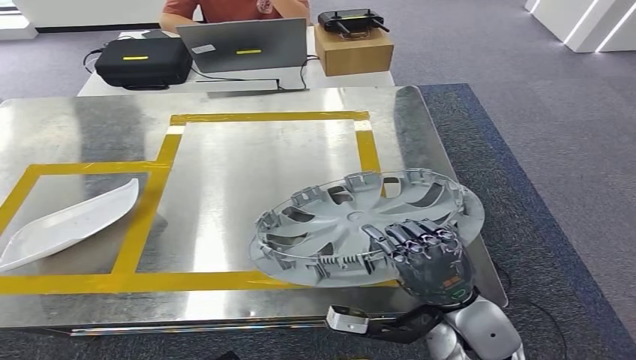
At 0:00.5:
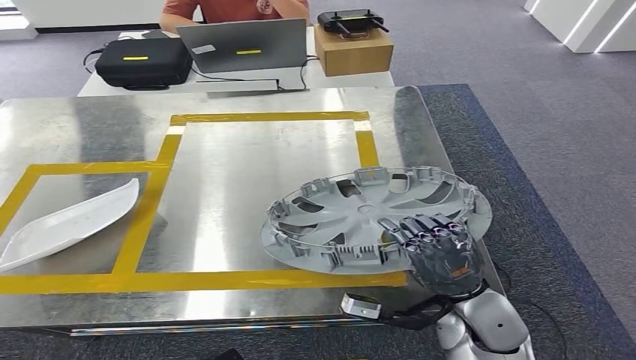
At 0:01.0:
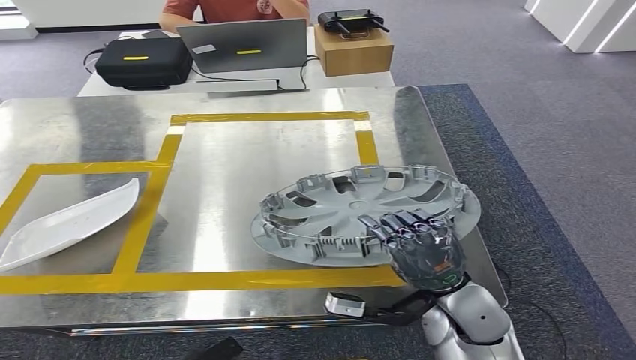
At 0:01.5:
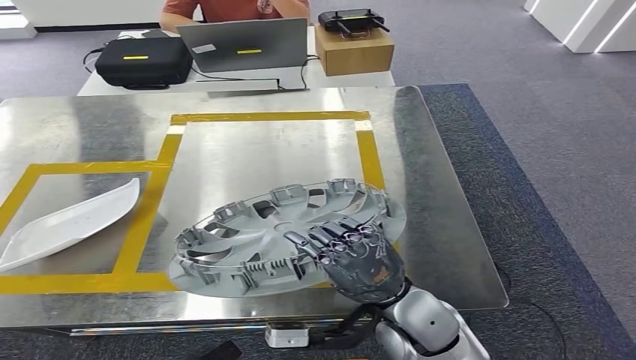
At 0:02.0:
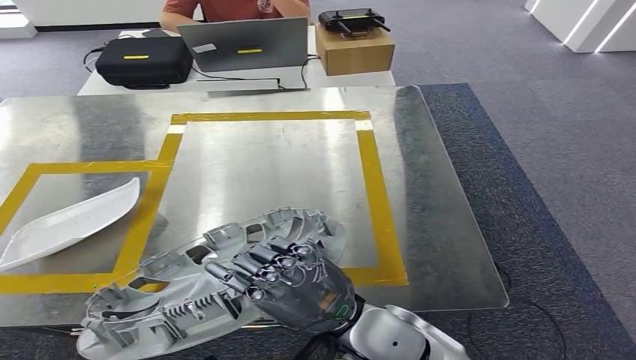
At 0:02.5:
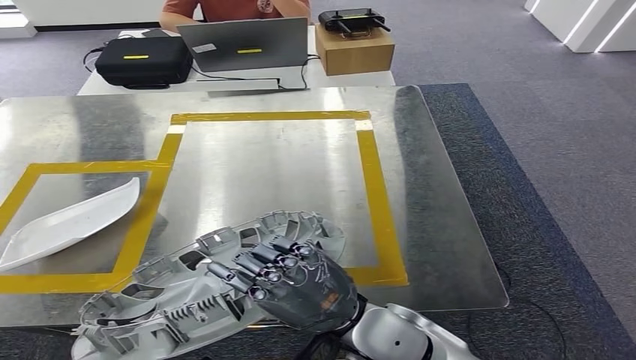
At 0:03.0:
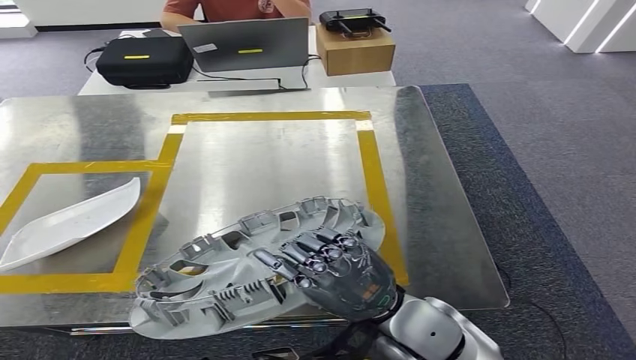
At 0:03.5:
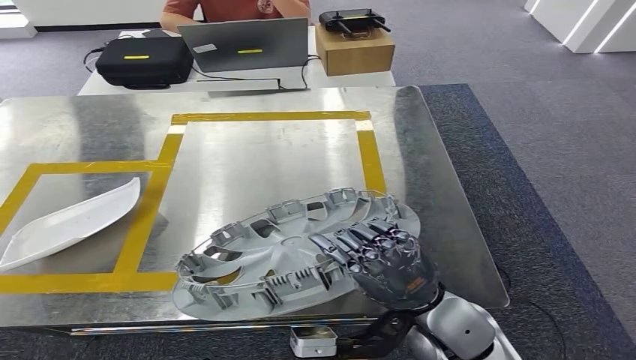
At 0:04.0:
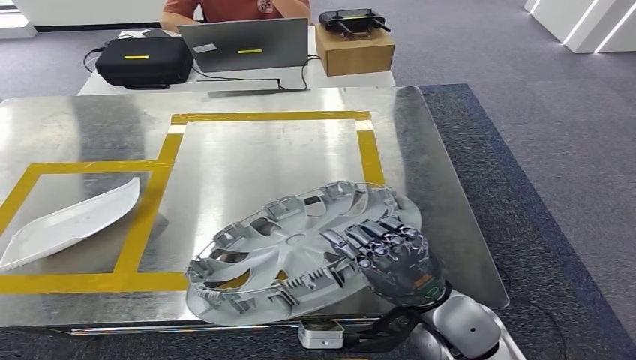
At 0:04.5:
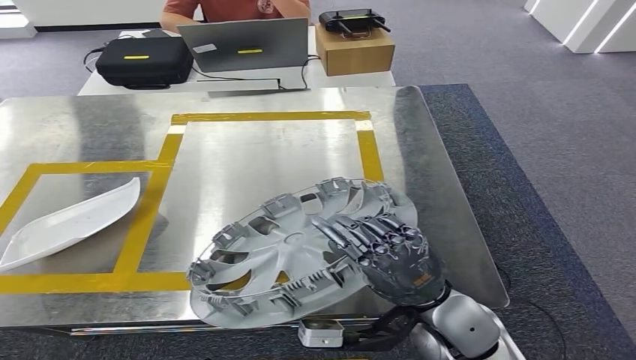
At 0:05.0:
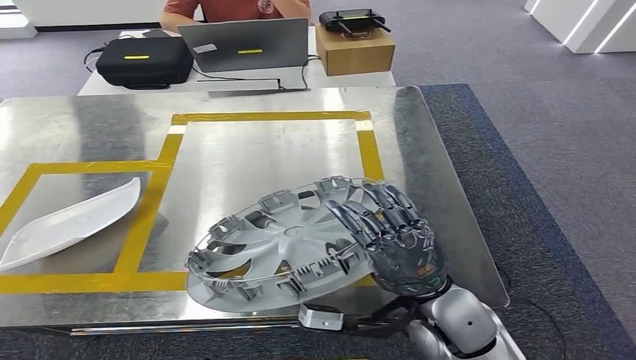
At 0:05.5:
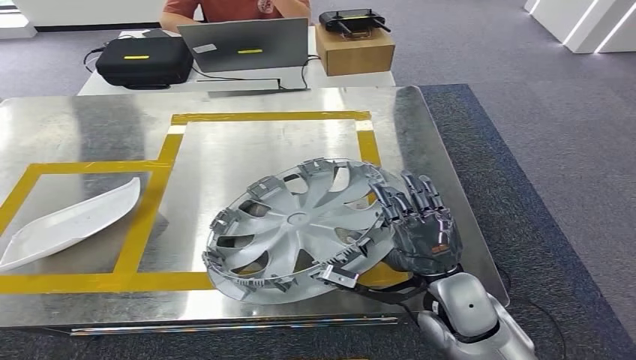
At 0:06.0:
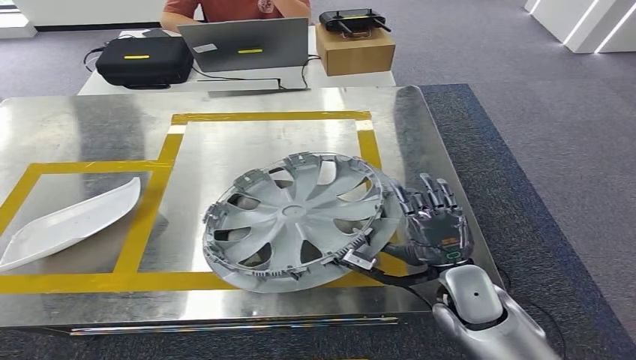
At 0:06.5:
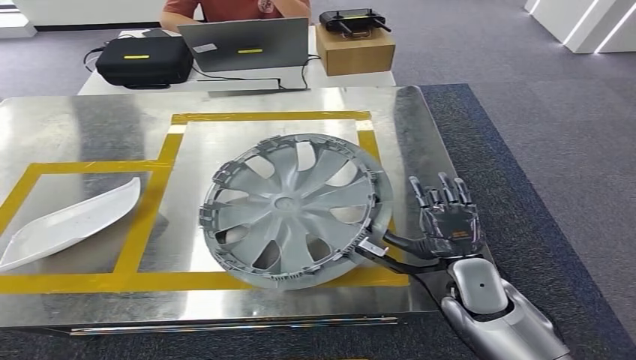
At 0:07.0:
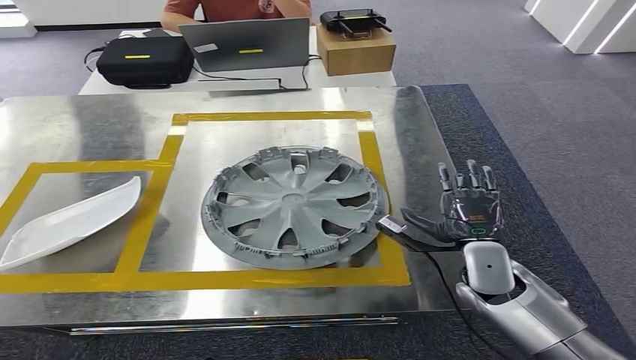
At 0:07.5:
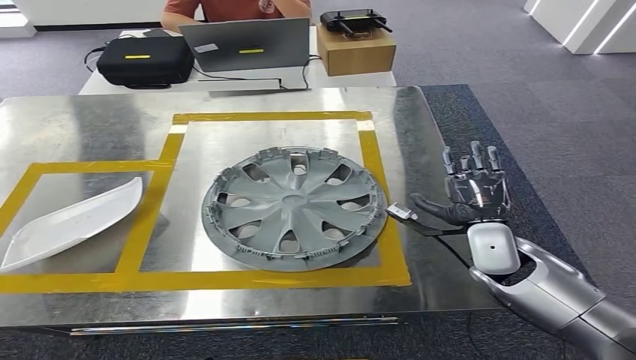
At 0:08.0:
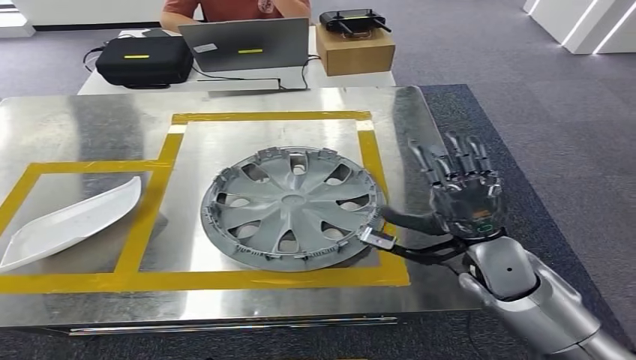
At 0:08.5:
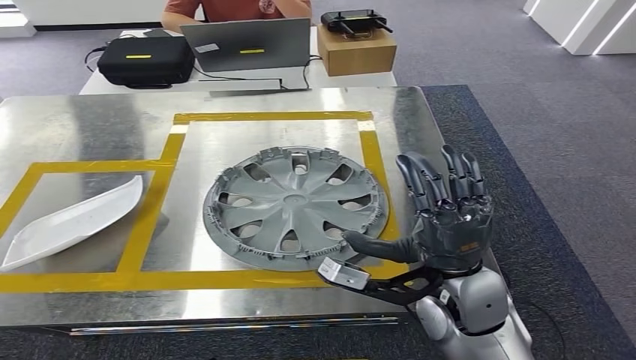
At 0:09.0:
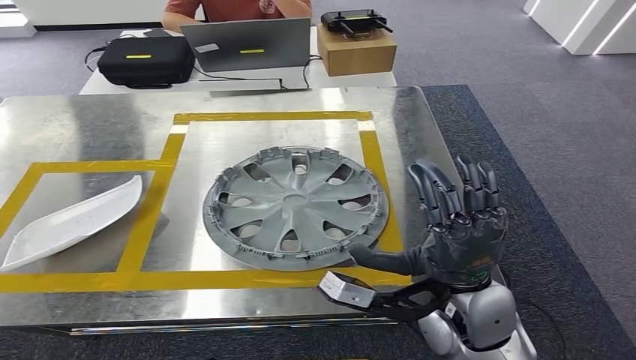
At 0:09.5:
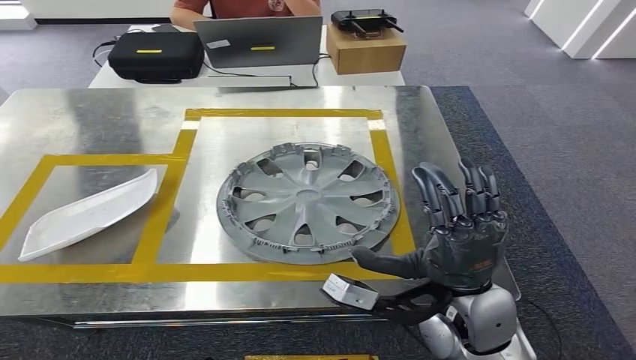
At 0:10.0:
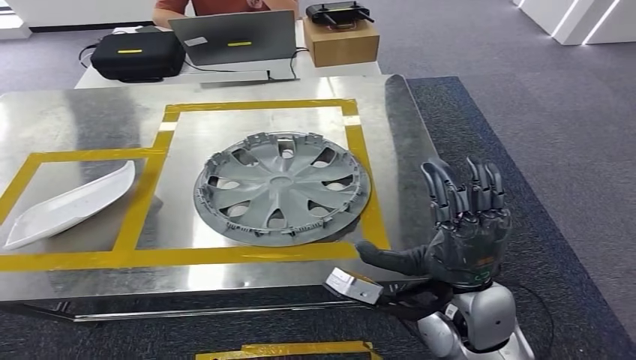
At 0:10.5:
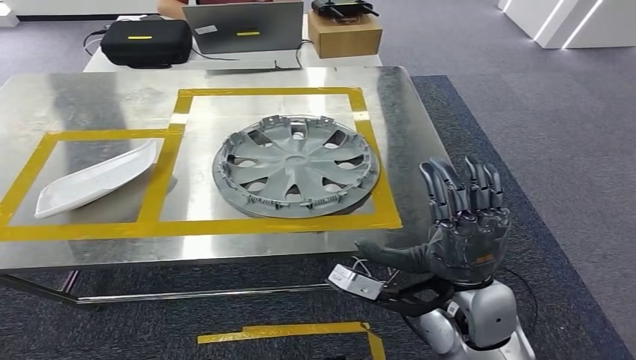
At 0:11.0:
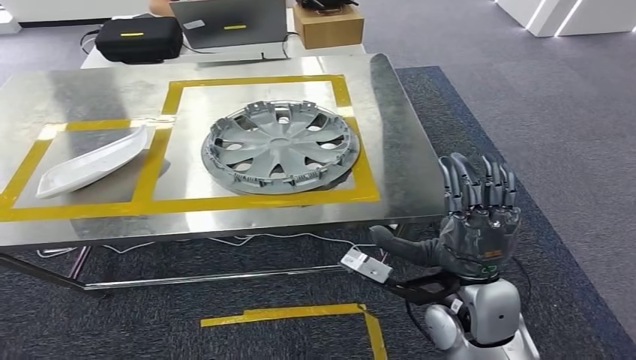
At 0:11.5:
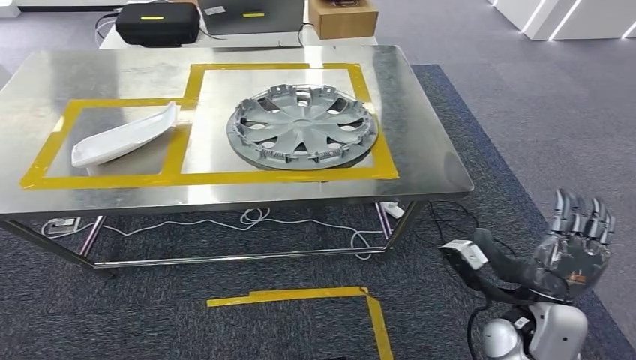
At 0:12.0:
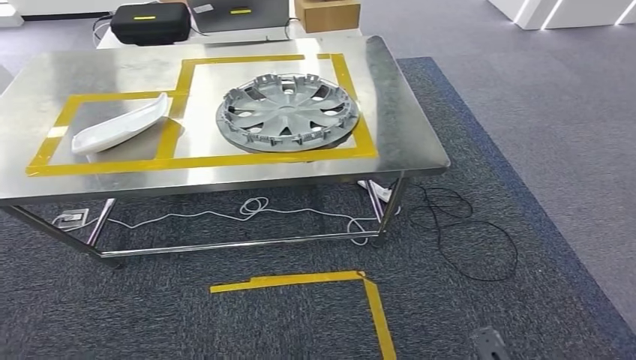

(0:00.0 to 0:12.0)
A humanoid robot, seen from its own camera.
Step, 0:00.0 - 0:08.5: Insert the small component into the corresponding slot on the workbench.
0:00.0 - 0:02.0: The right hand shifts roughly 15 cm to the left.
0:02.0 - 0:04.0: The right hand is displaced to the right by about 10 cm.
0:04.0 - 0:06.0: The right hand travels downward by roughly 5 cm.
0:06.0 - 0:08.0: The right hand is displaced upward by some 5 cm.

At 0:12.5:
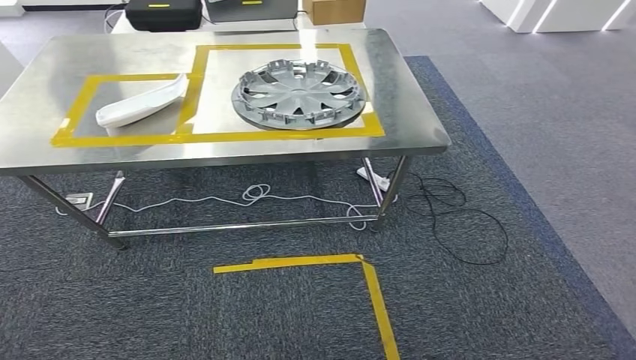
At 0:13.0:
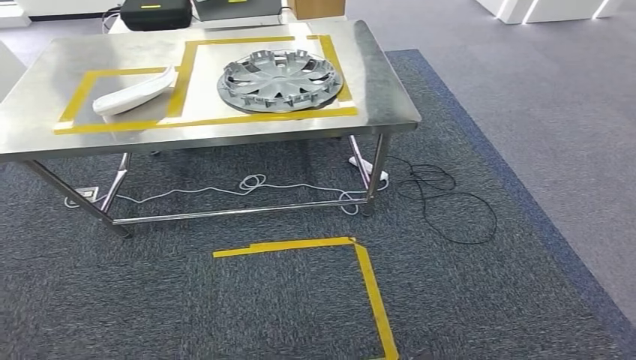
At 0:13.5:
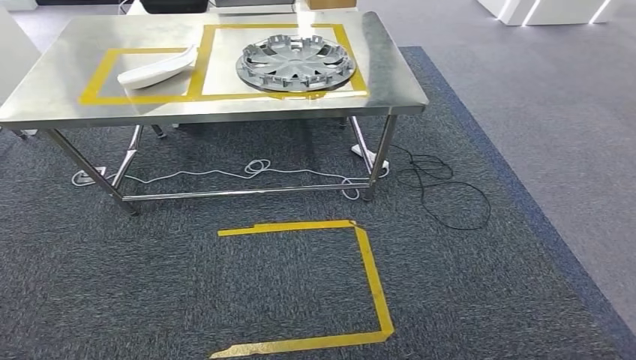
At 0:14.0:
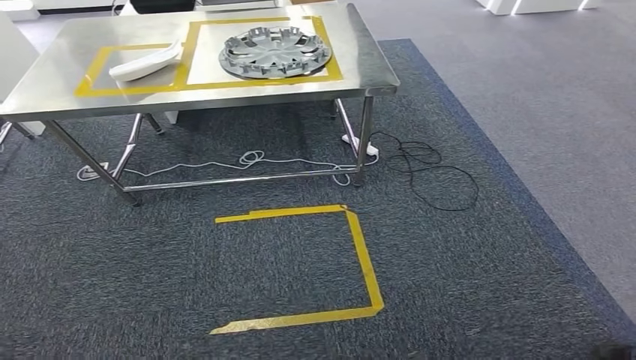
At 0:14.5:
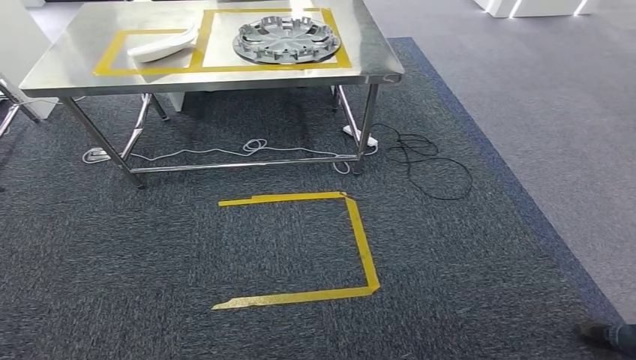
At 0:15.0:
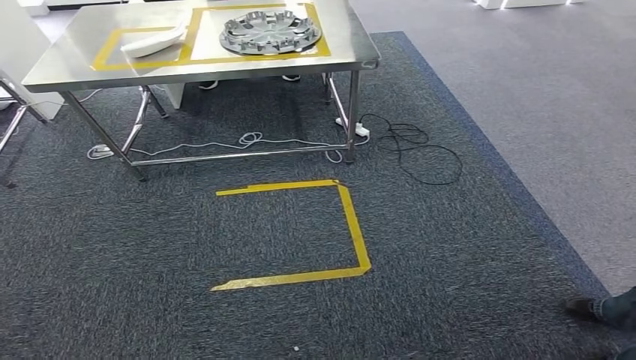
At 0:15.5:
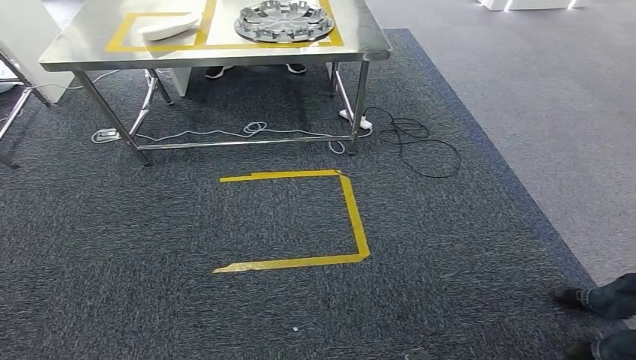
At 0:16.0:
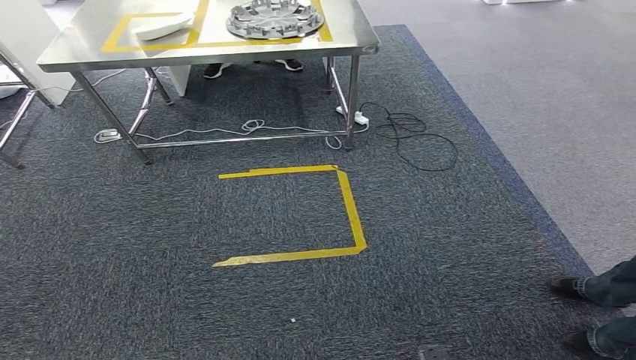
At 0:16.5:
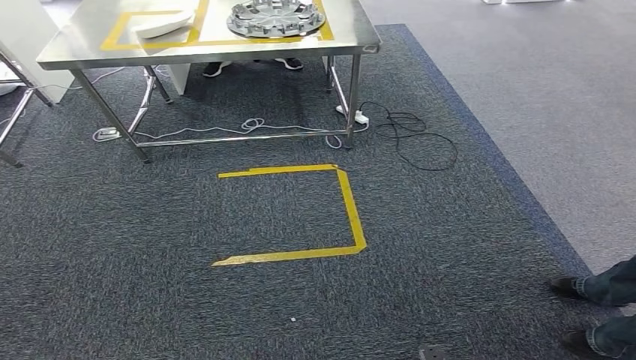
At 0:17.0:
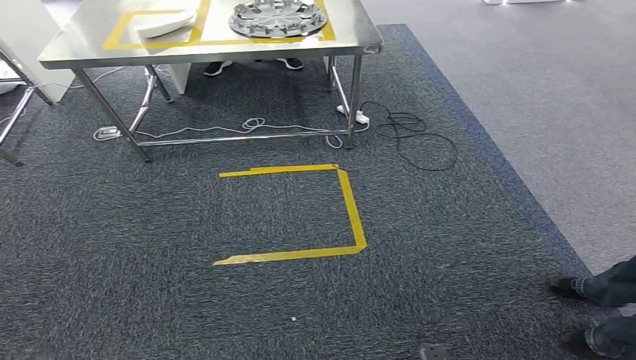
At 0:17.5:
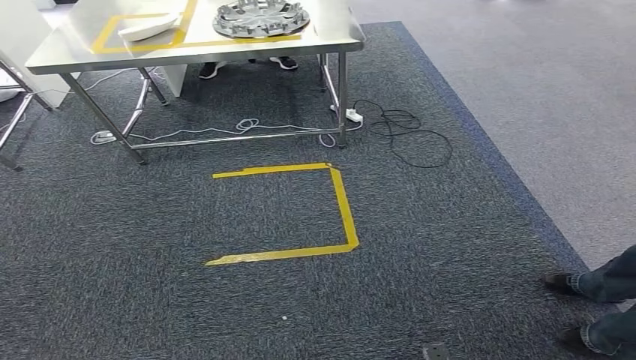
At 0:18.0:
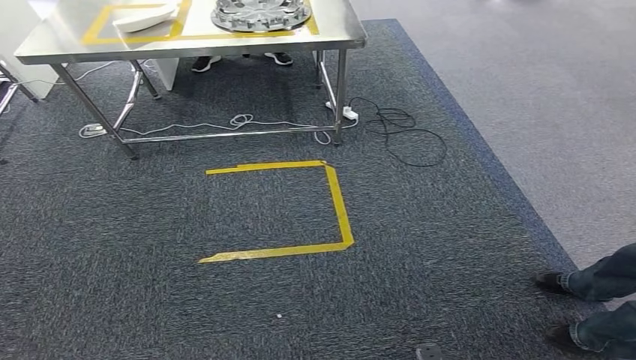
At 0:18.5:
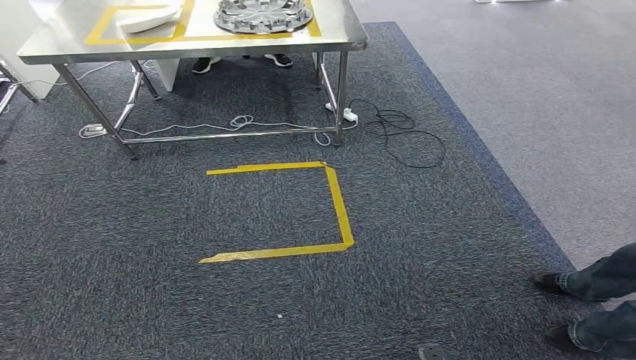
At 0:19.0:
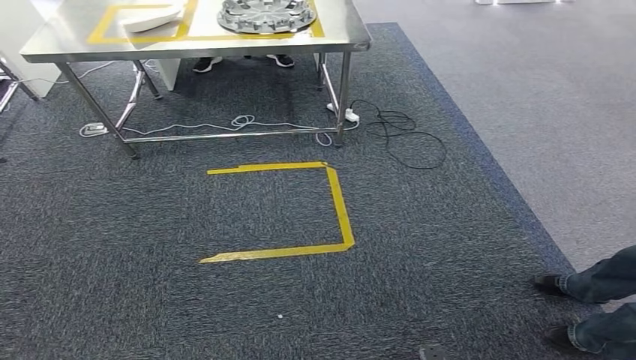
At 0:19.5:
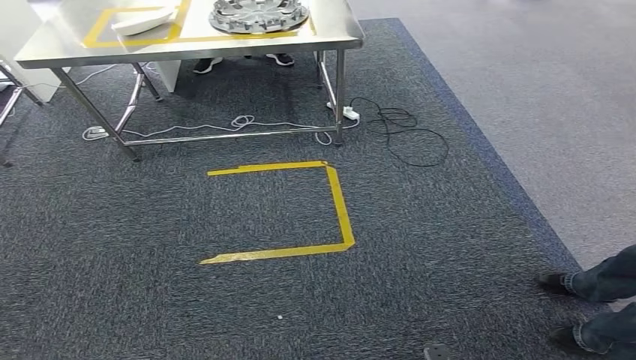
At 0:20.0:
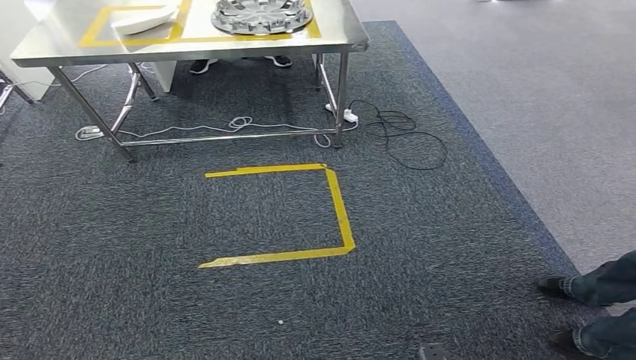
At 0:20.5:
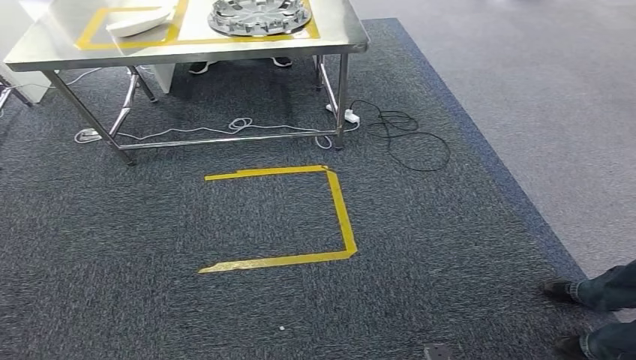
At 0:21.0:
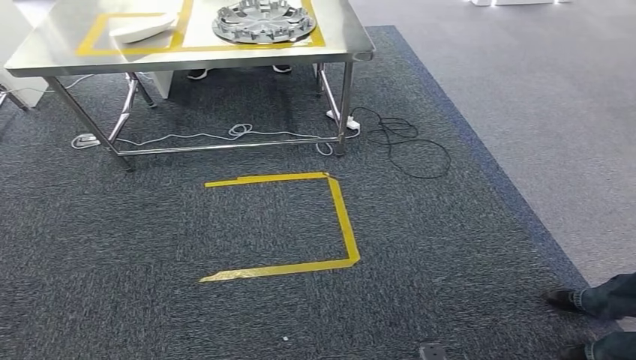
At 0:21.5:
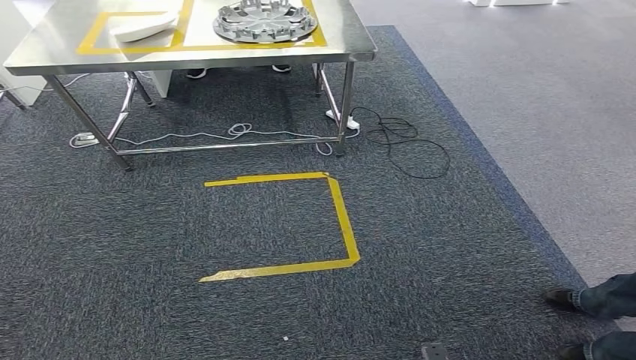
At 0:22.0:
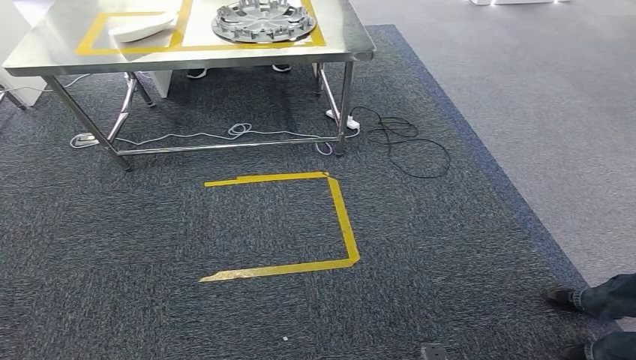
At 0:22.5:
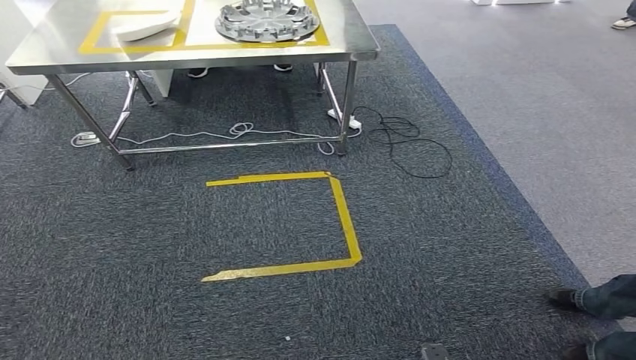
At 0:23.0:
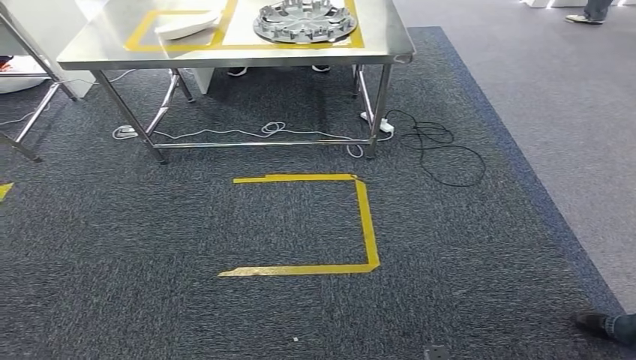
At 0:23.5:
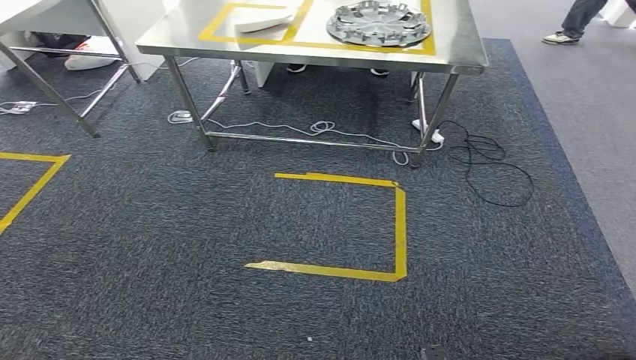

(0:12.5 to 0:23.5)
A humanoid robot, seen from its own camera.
0:16.0 - 0:20.0: The two hands keep their place.
0:20.0 - 0:21.5: The two hands keep their place.
